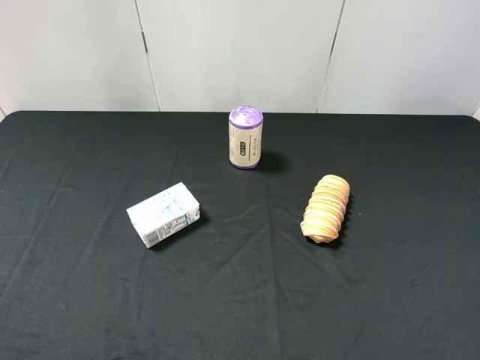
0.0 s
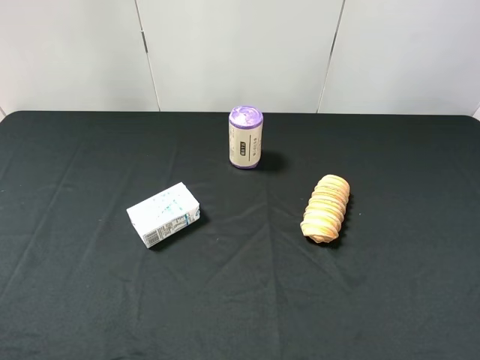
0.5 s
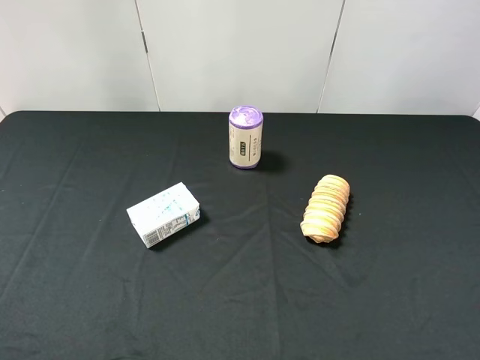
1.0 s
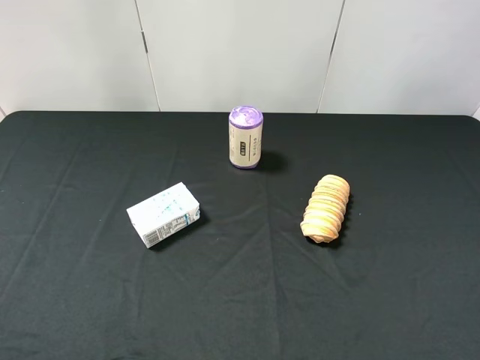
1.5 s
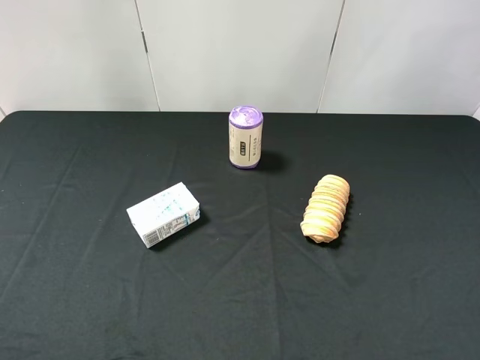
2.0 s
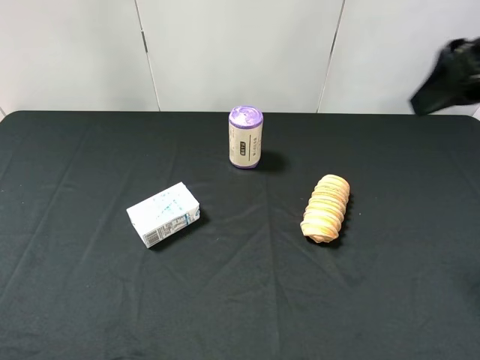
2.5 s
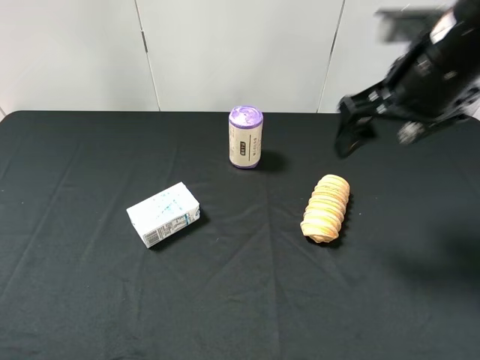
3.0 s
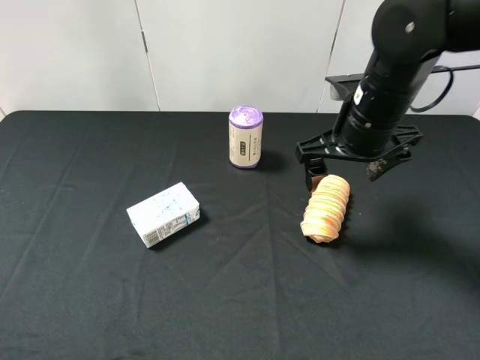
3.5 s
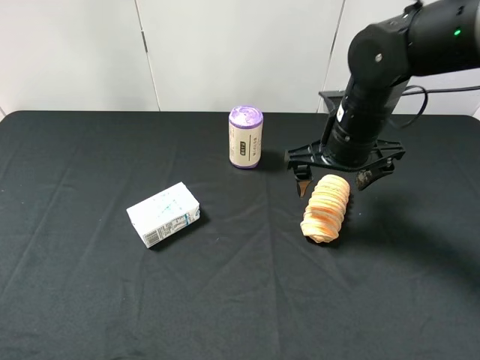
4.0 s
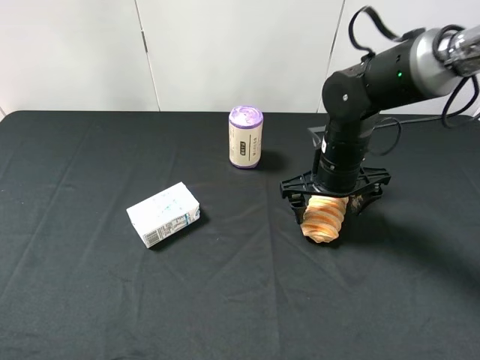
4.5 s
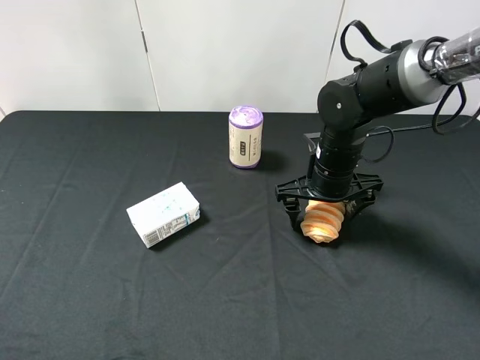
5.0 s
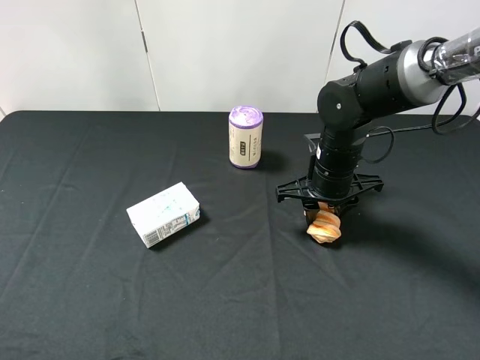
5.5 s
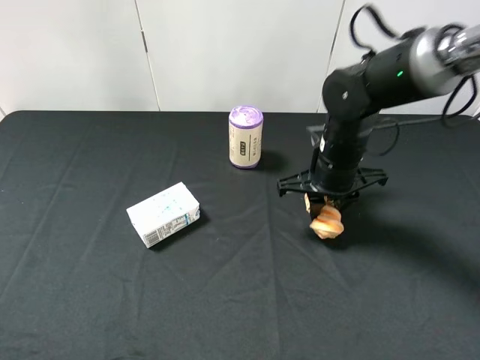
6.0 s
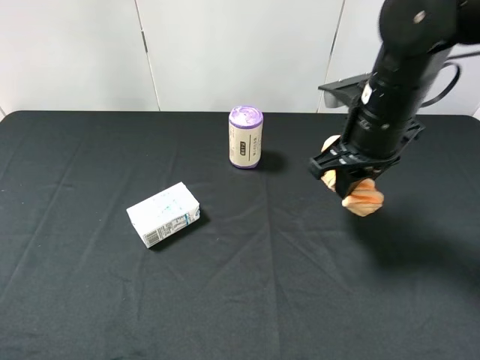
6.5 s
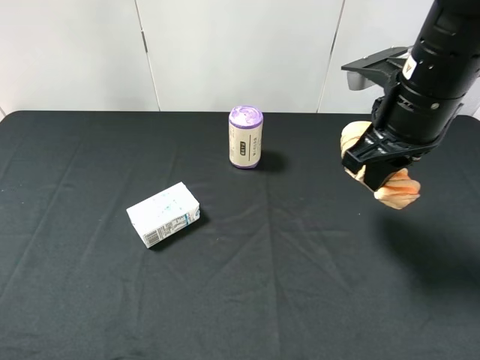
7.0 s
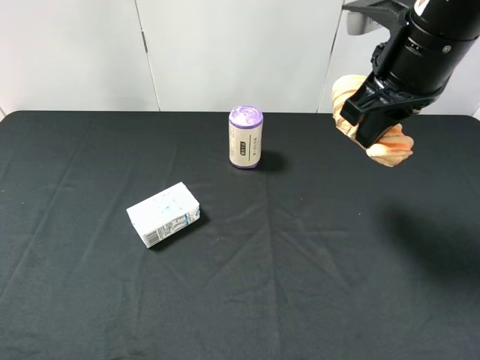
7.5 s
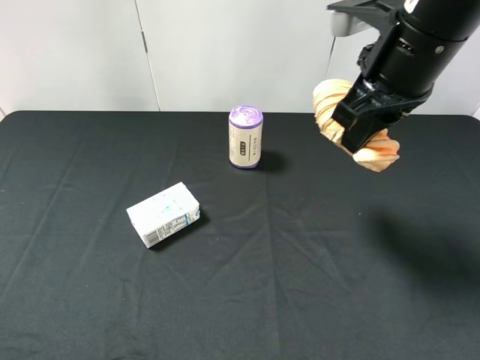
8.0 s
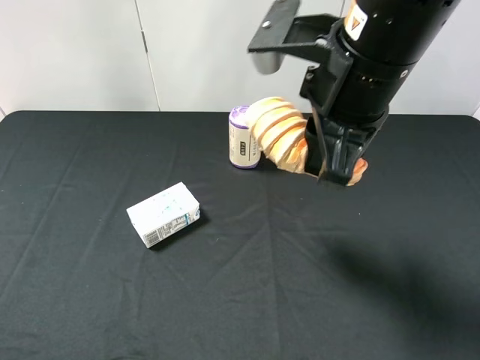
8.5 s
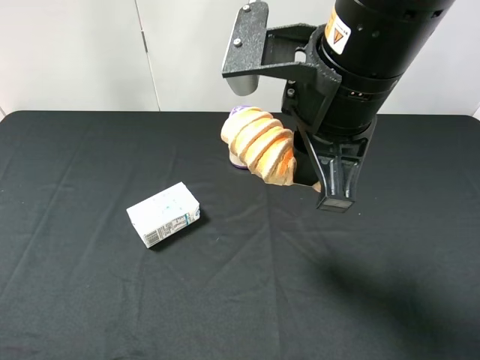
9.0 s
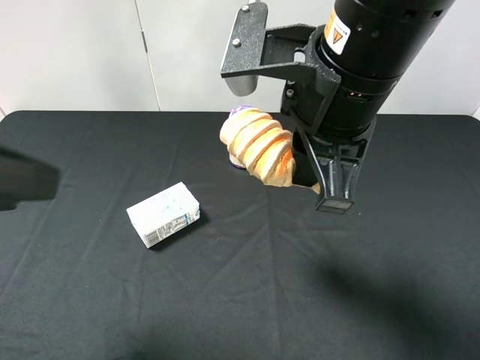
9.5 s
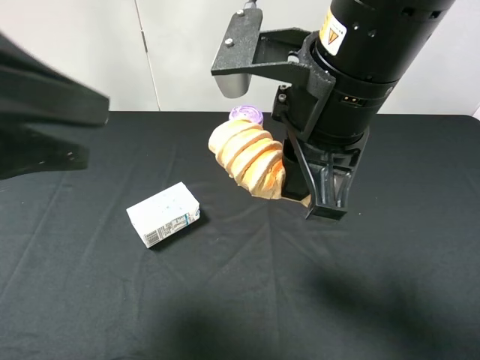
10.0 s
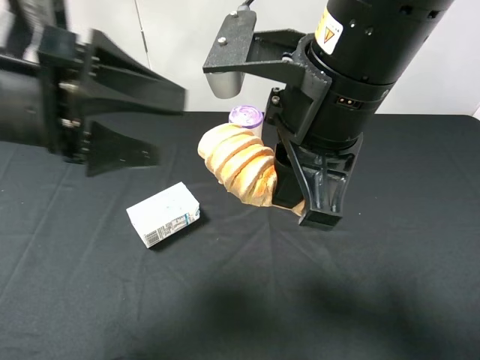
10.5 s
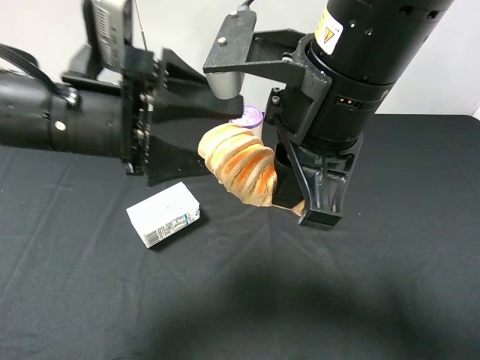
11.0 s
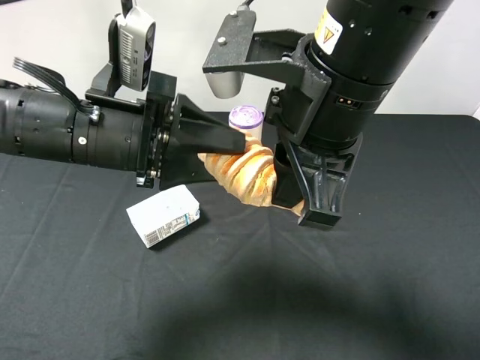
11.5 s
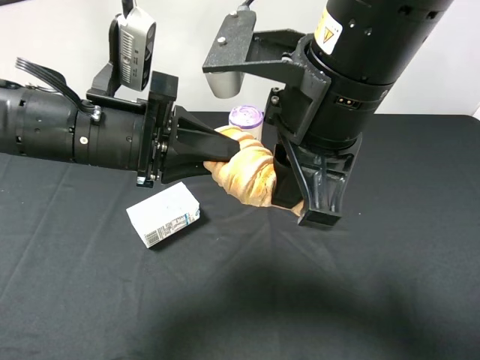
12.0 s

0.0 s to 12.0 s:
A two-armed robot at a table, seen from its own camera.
Task of the whole recording: use the right gripper to pick up the item and transfer it from the right gripper to the left gripper.
Step, 0.0 to 5.5 s: Use the right gripper to grab the bread on the right side of the table.
2.0 to 4.0 s: The right gripper moves forward, downward and to the left, approximately 30 cm.
4.0 to 6.0 s: The right gripper closes its fingers.
6.0 to 8.0 s: The right gripper moves upward, approximately 20 cm.
8.0 to 10.0 s: The left gripper moves forward and to the right, about 20 cm. Meanwhile the right gripper shifts some 10 cm to the left and backward.
10.0 to 12.0 s: The left gripper shifts some 10 cm to the right and downward, and closes its fingers.

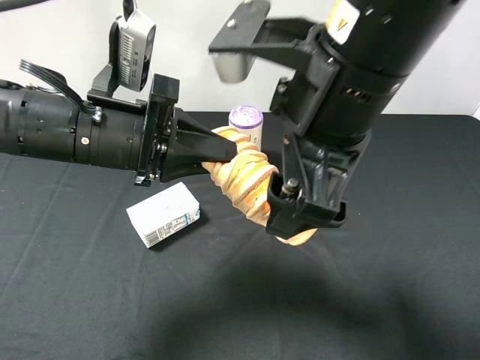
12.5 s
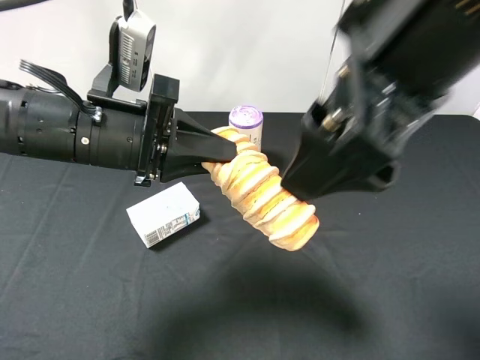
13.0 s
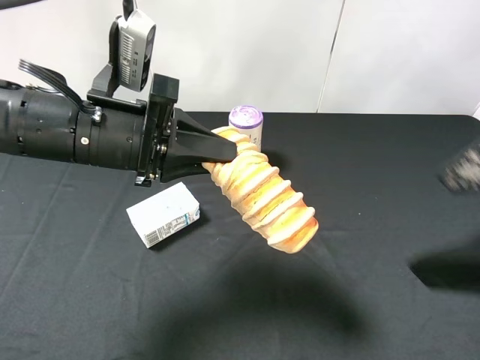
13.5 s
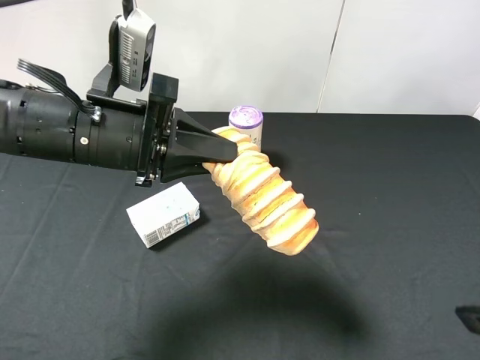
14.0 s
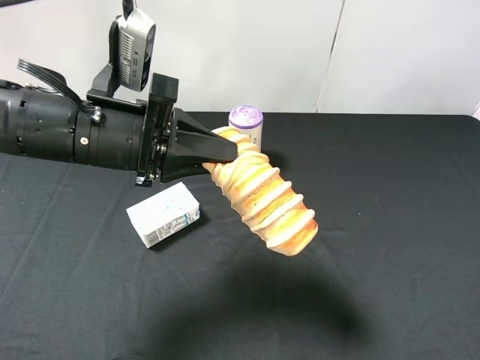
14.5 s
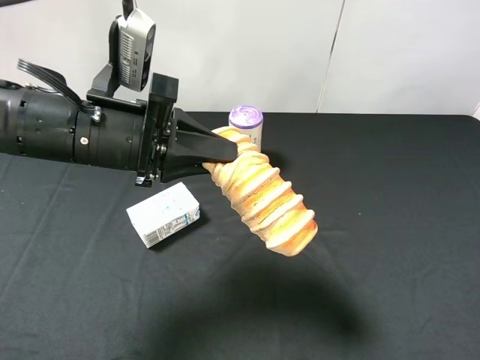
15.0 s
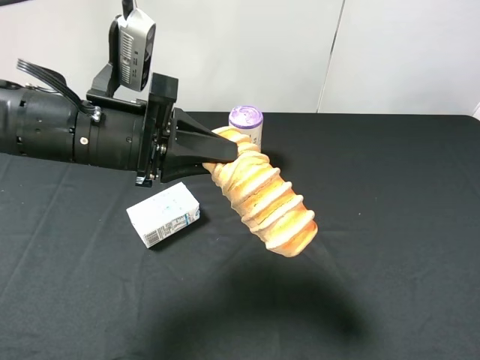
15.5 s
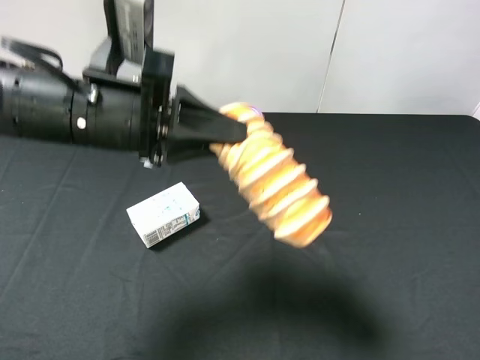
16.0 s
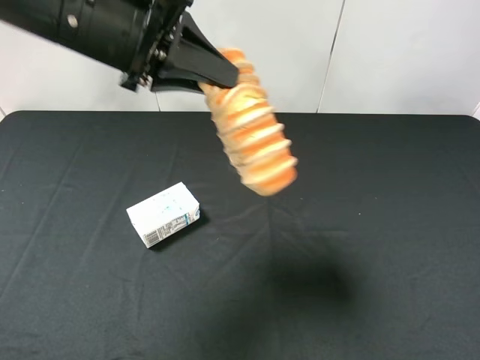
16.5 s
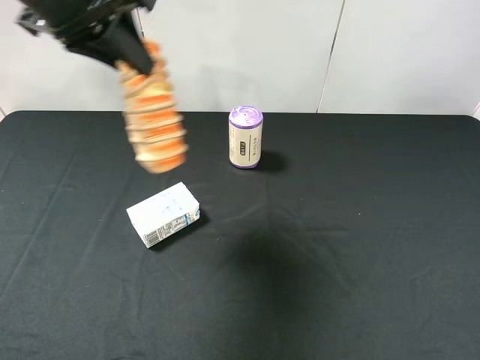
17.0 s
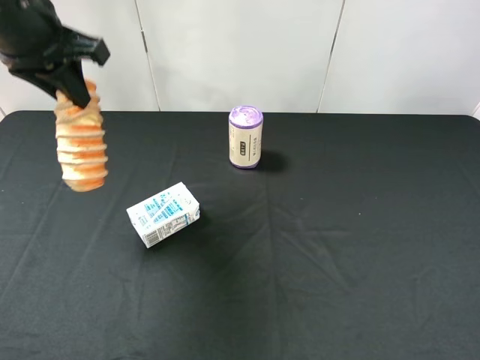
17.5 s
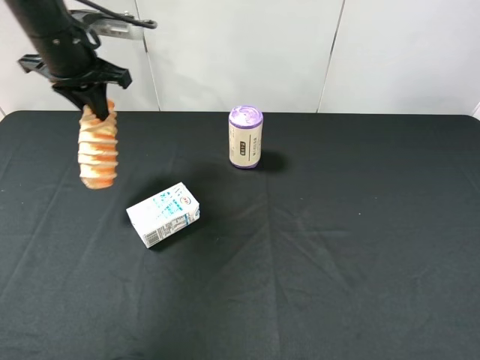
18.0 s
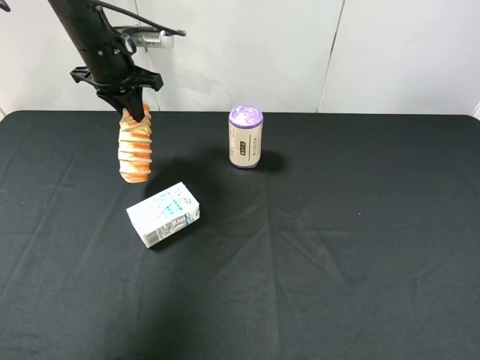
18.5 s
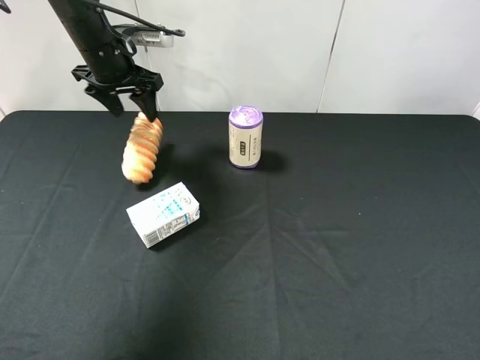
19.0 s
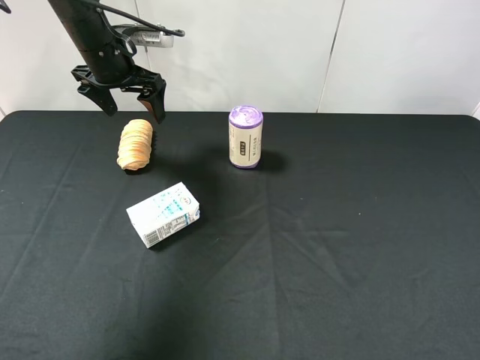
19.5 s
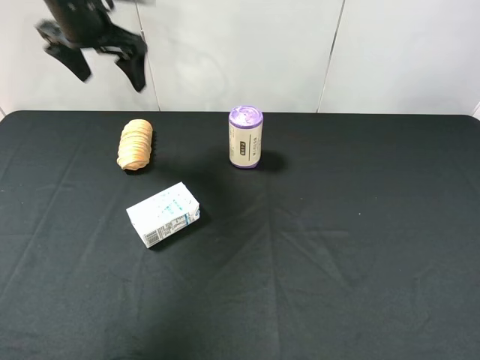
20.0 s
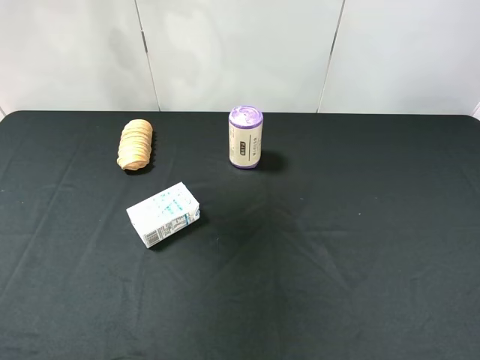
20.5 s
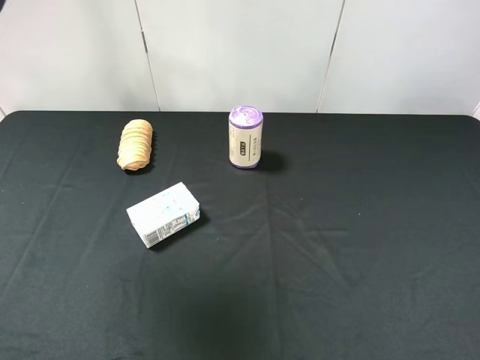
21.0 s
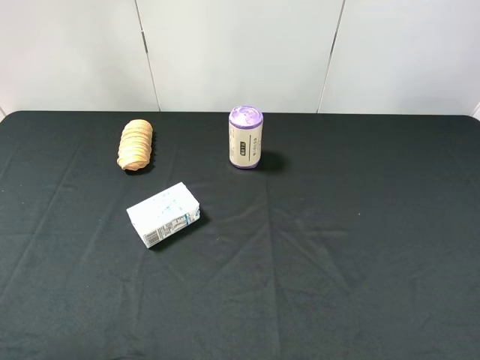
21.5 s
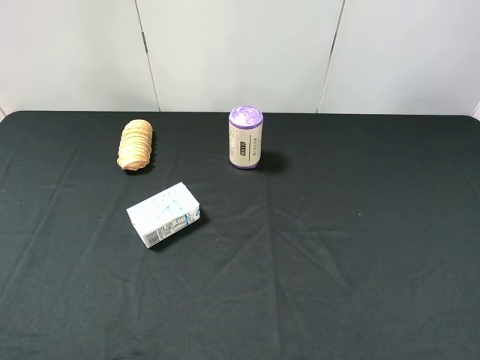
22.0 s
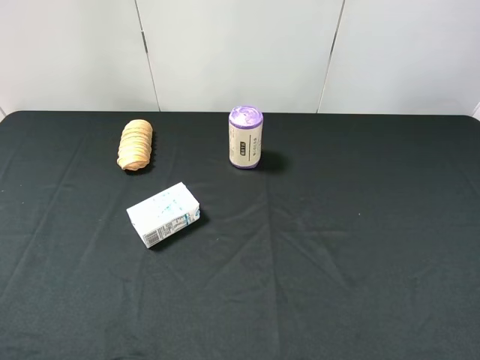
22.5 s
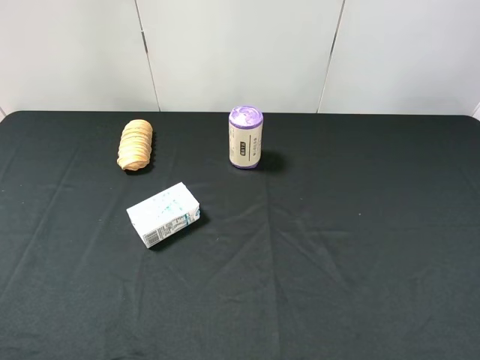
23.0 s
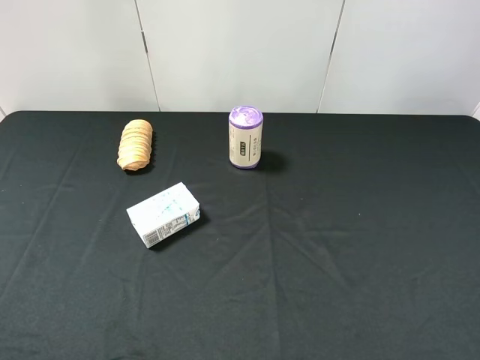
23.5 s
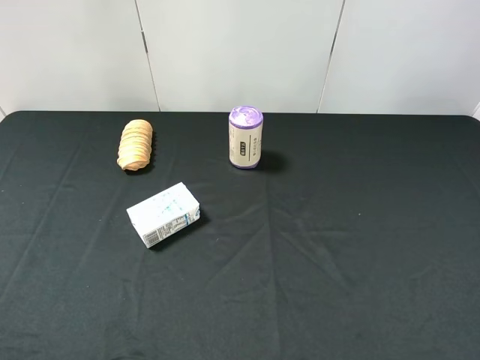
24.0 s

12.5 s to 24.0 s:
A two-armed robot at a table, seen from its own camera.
Task of the whole recording: use the right gripper to pick up the item and transfer it from the right gripper to the left gripper.
Step, 13.5 to 19.0 s: The left gripper places bread on the left side of the table.
12.5 to 14.5 s: The right gripper shifts roughly 25 cm to the right and backward.
14.5 to 16.5 s: The left gripper goes some 10 cm upward.
16.5 to 18.5 s: The left gripper shifts some 20 cm forward and downward.
18.5 to 20.0 s: The left gripper travels upward by some 10 cm, and opens up.
20.0 to 22.0 s: The left gripper is displaced backward by some 40 cm.
